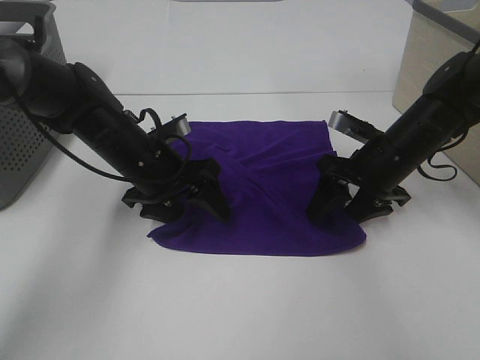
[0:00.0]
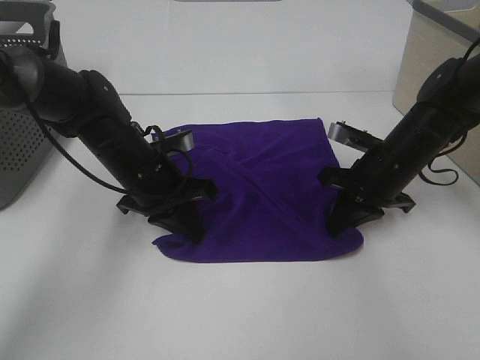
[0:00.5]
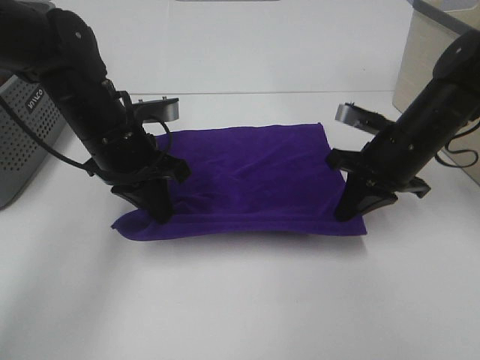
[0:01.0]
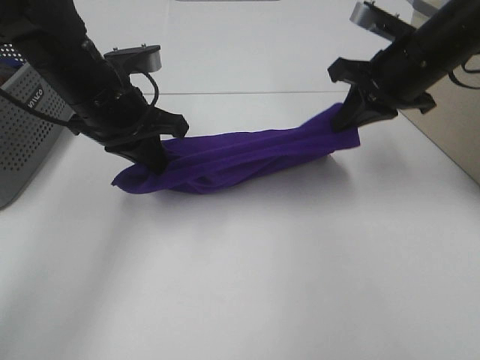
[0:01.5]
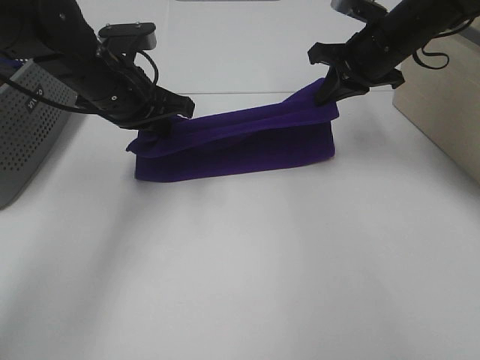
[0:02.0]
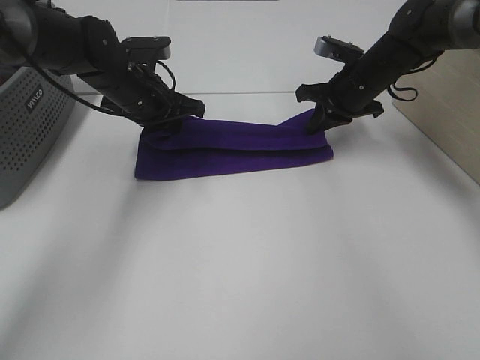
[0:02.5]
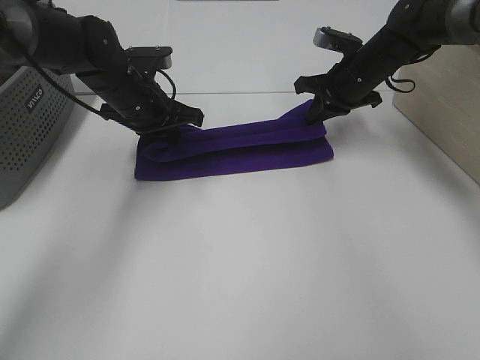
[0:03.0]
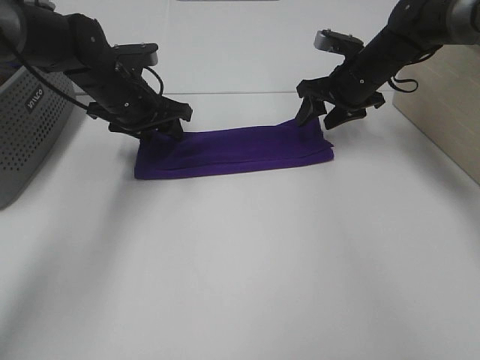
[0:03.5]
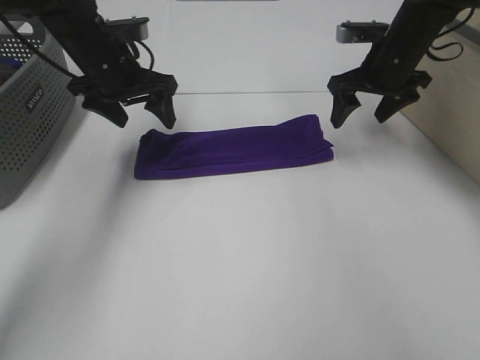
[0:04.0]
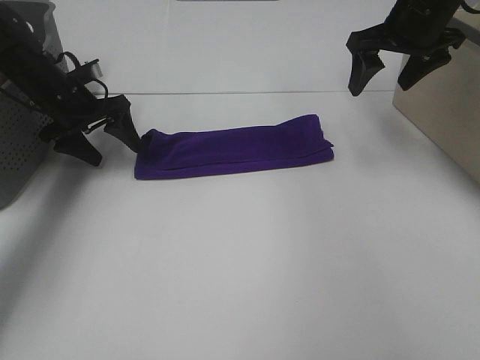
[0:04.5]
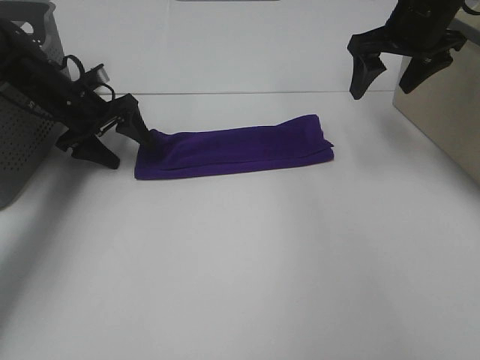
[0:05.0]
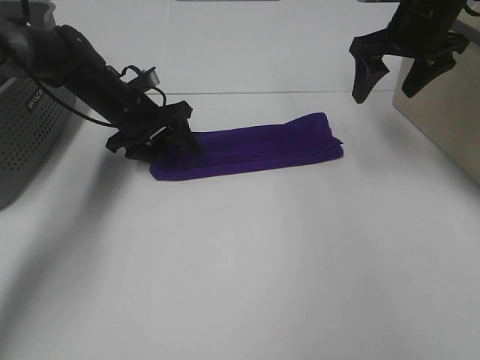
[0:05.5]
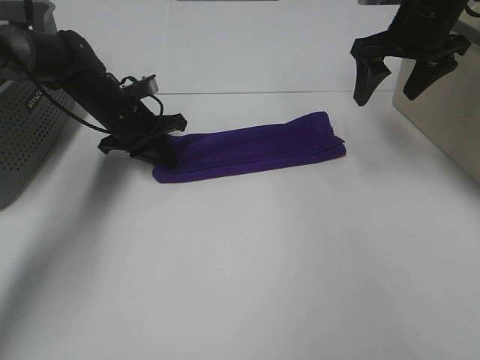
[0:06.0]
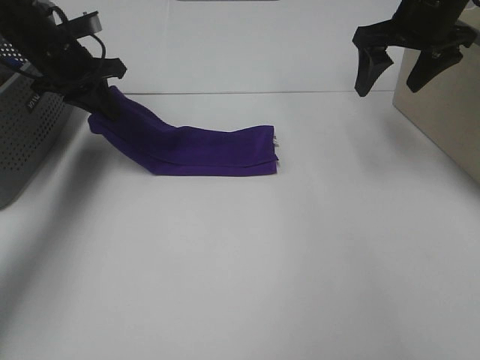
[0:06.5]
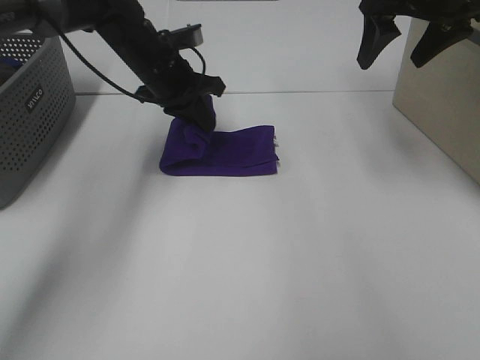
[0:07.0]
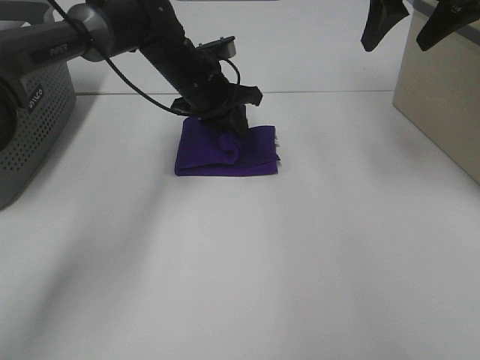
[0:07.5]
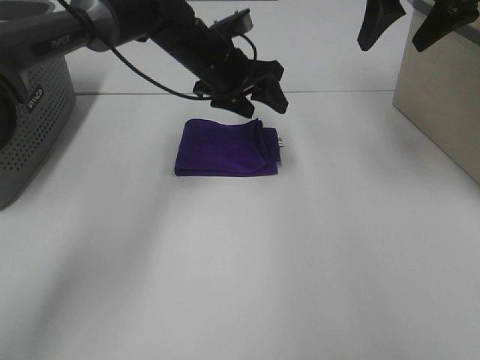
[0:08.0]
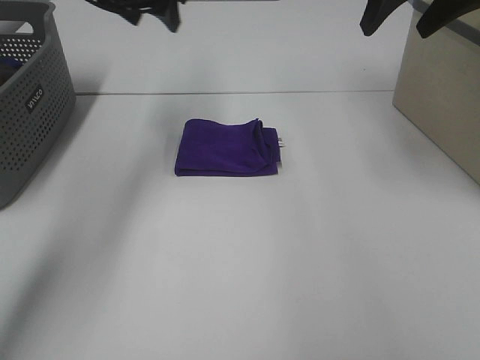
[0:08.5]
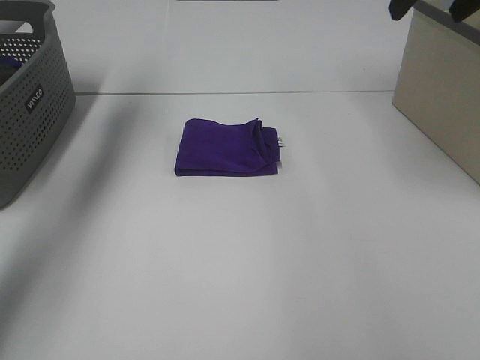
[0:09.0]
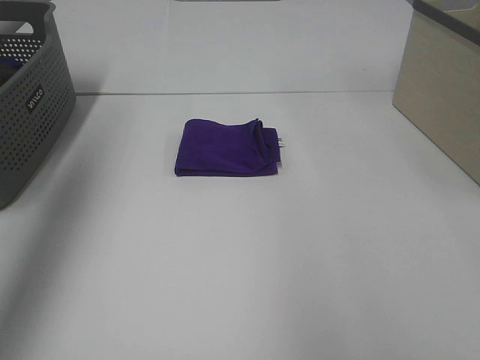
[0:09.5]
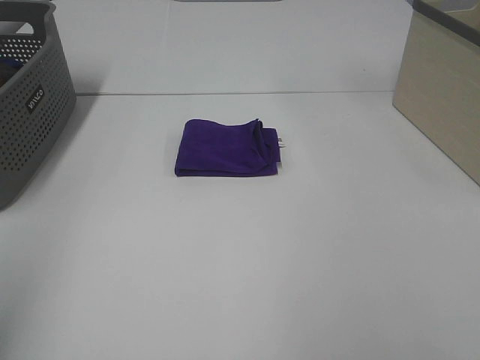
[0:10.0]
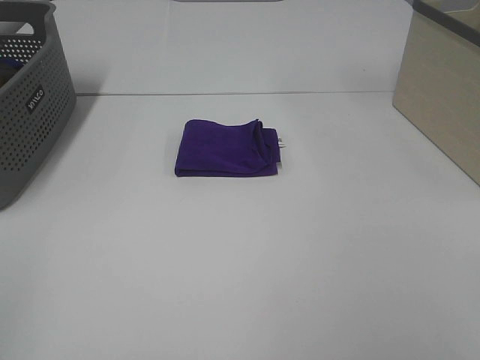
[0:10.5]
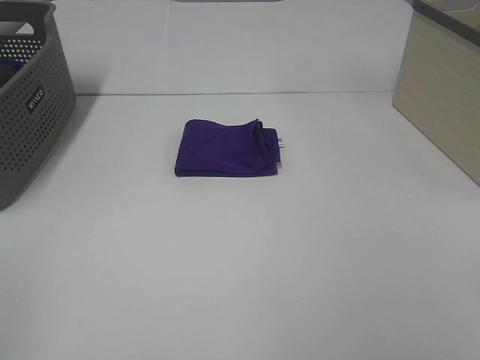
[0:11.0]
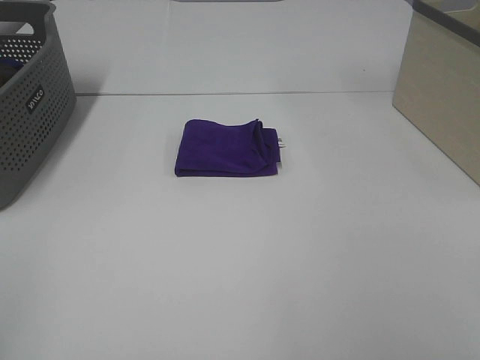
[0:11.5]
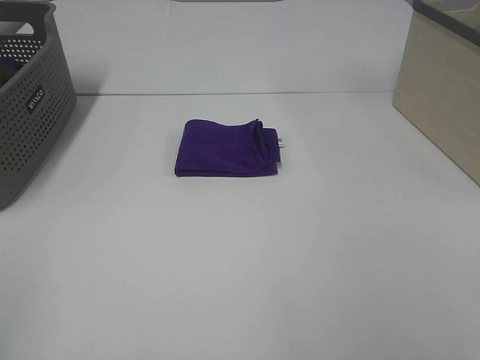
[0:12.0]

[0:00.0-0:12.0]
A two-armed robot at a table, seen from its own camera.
Task of the whole recording: Fold towels.
Step, 0:00.5 to 0:03.0: Left hand: fold the purple towel up.
Step, 0:00.5 to 0:03.0: Right hand: fold the purple towel up.
Step, 0:03.5 to 0:07.5: Left hand: fold the purple towel from left to right.
0:00.0 to 0:02.0: The right gripper shifts about 15 cm upward and forward, and closes, while the left gripper is displaced upward by about 10 cm, and closes its fingers.
0:02.0 to 0:04.0: The right gripper opens up. Meanwhile the left gripper travels forward by roughly 5 cm, and opens.
0:04.0 to 0:06.0: The left gripper shifts some 10 cm downward, and closes up. The right gripper shifts roughly 5 cm upward.
0:06.0 to 0:08.0: The left gripper heads to the right and upward, covering about 15 cm, and opens up. Meanwhile the right gripper is displaced upward by about 10 cm.
0:08.0 to 0:10.0: The left gripper is displaced backward, to the left and upward by about 50 cm. Meanwhile the right gripper is displaced backward by approximately 40 cm.
